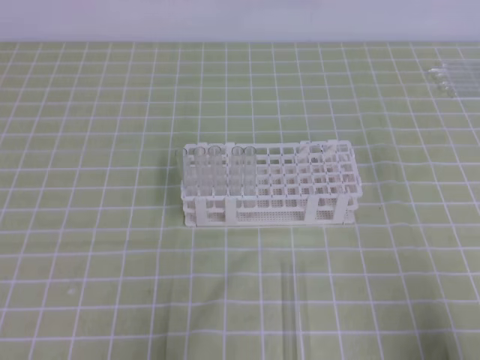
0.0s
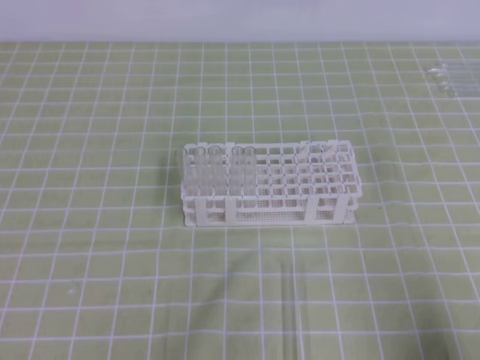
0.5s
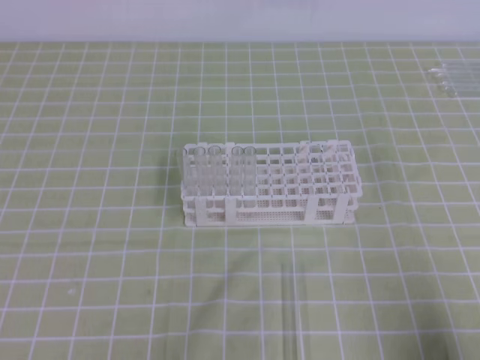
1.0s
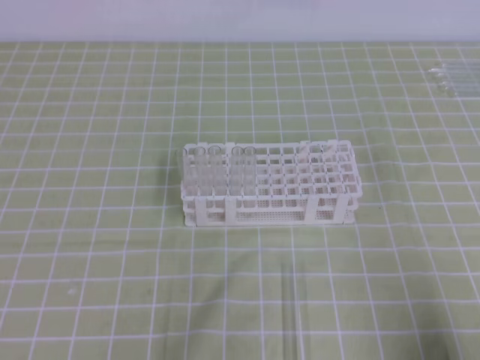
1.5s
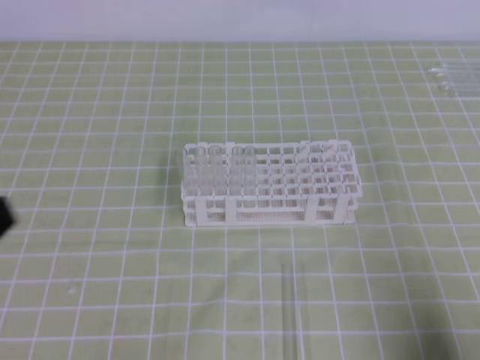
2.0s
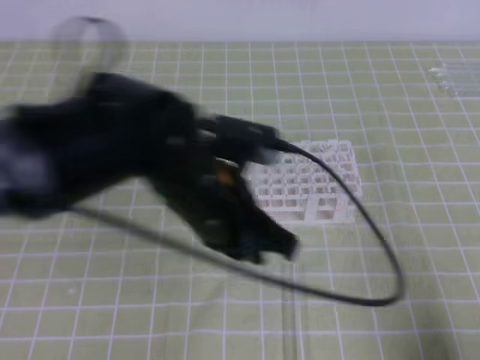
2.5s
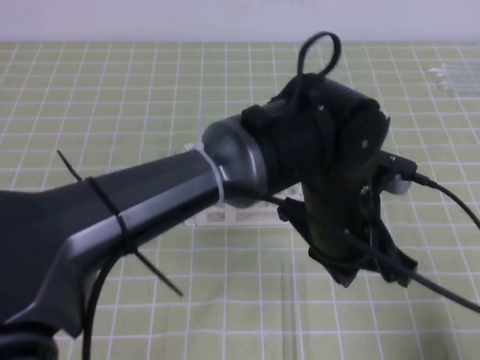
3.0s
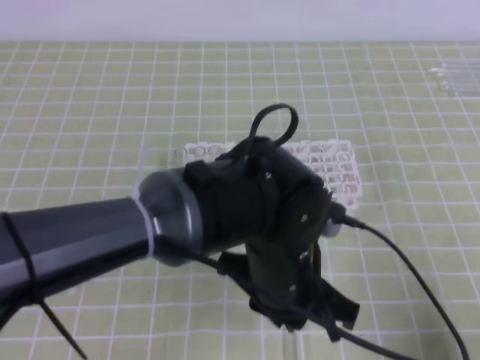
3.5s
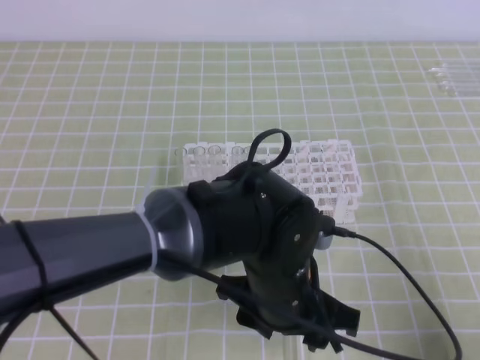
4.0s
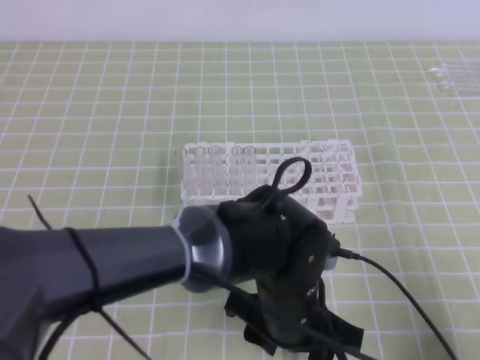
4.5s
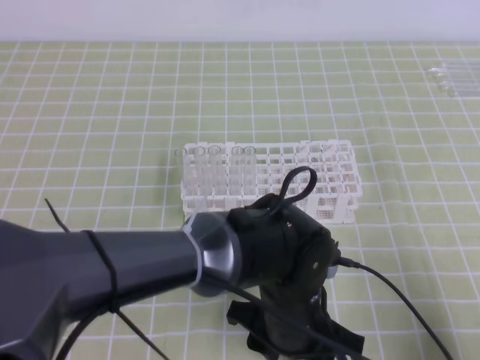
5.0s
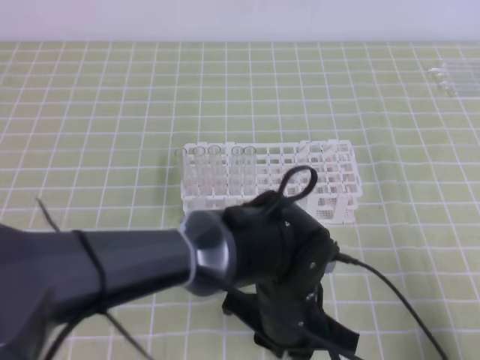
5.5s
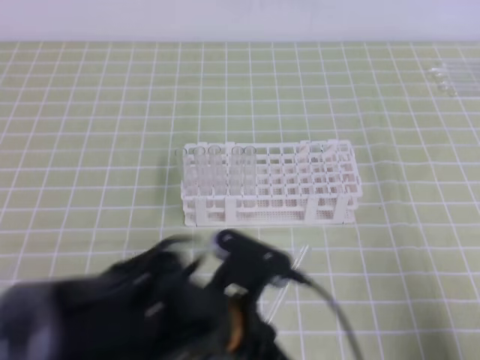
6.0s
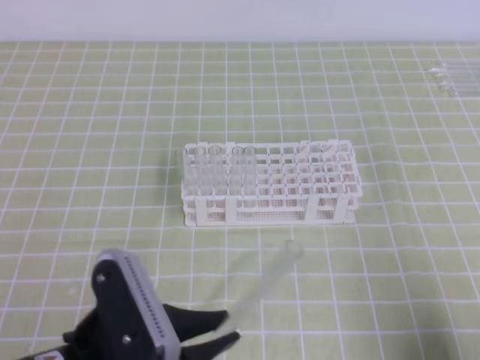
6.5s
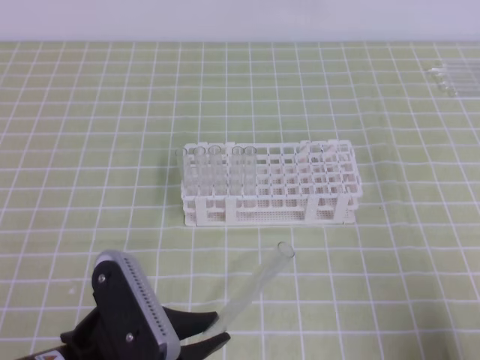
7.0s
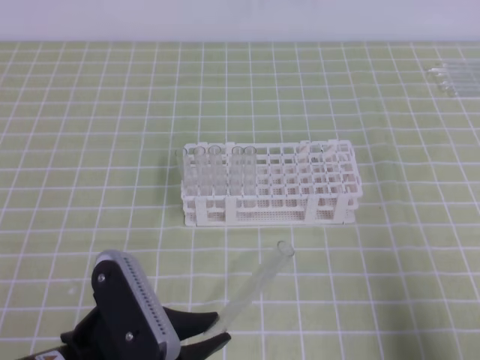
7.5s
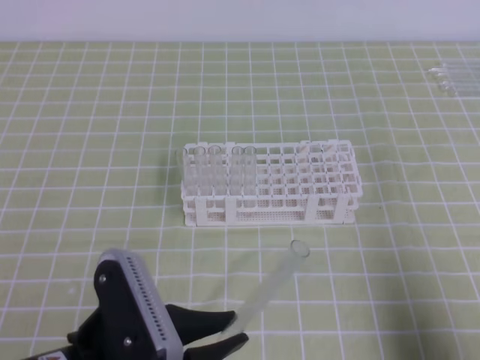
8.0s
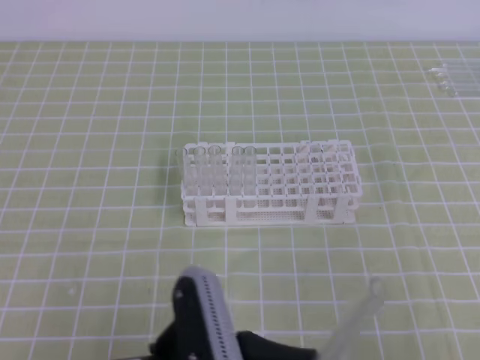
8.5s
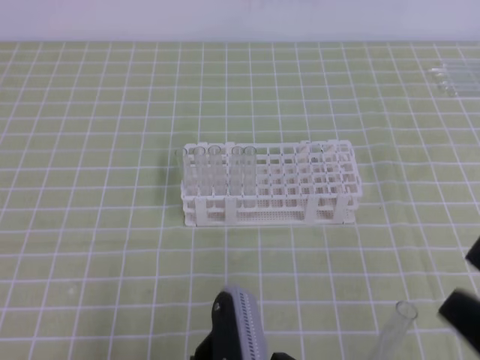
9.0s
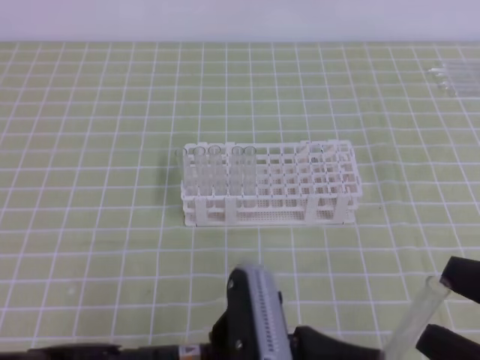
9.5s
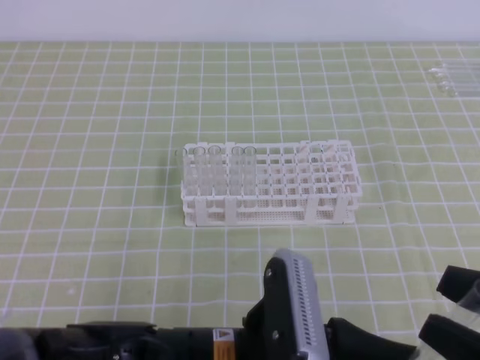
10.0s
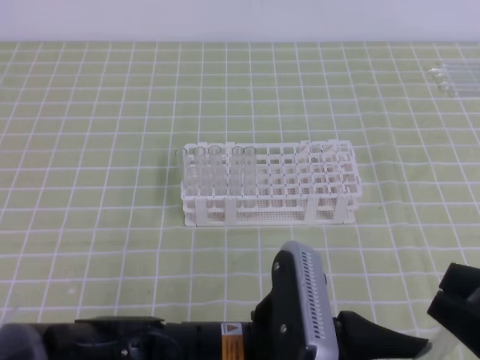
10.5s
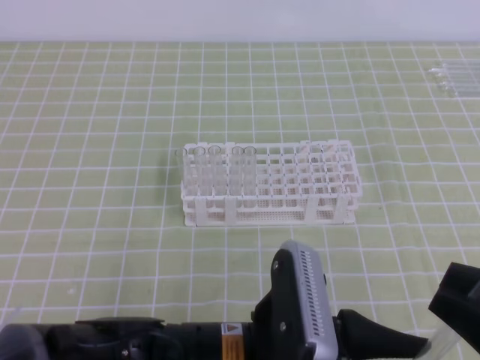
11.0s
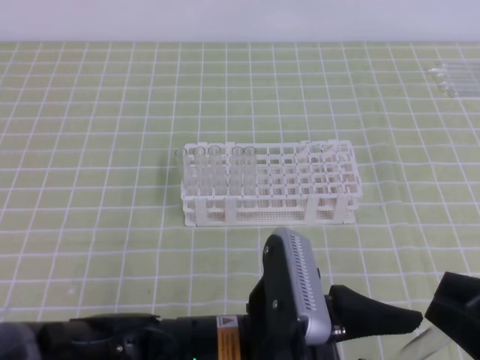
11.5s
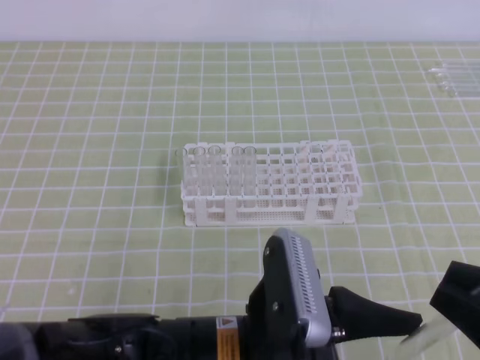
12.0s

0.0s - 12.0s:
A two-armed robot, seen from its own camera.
0.0s - 2.0s: The left gripper shifts some 15 cm upward.
2.0s - 4.0s: The left gripper shifts approximately 30 cm to the right and downward, and opens its fingers.
4.0s - 6.0s: The left gripper moves to the left, some 5 cm, and closes.
6.0s - 8.0s: The left gripper heads to the left and backward, covering about 10 cm.
8.0s - 10.0s: The left gripper heads to the right, covering approximately 10 cm; the right gripper heads upward and to the left, covering approximately 10 cm, and opens.
10.0s - 12.0s: The left gripper opens its fingers. Meanwhile the right gripper closes up.

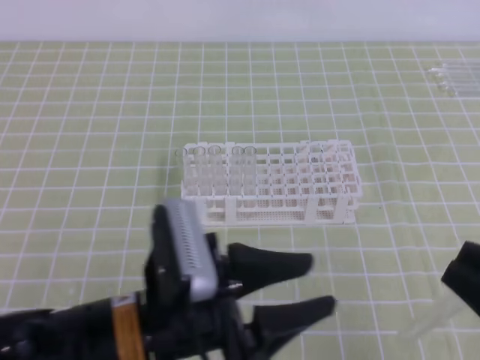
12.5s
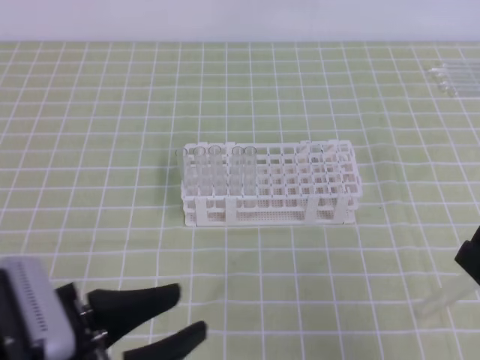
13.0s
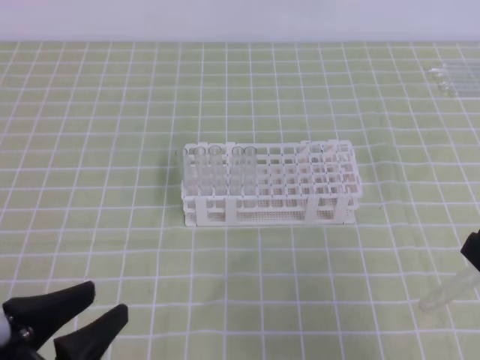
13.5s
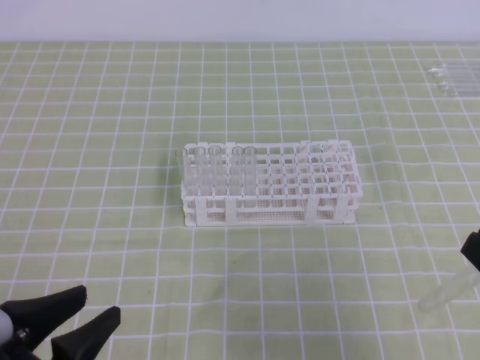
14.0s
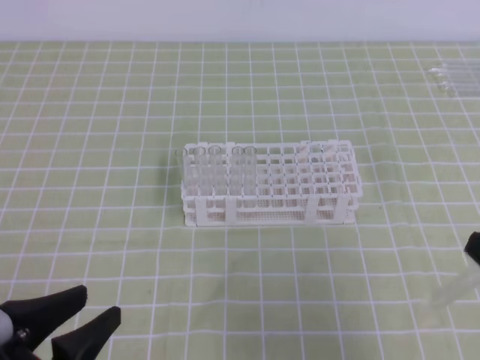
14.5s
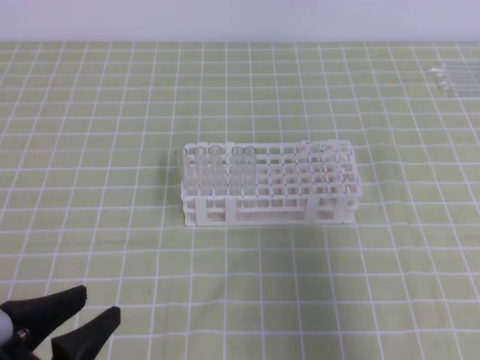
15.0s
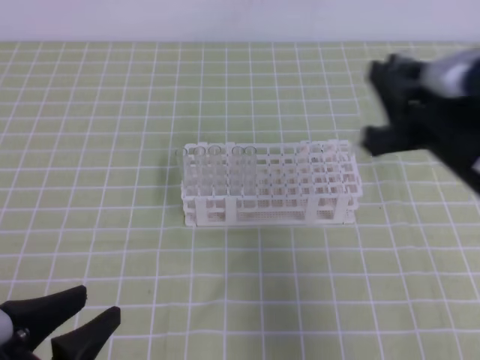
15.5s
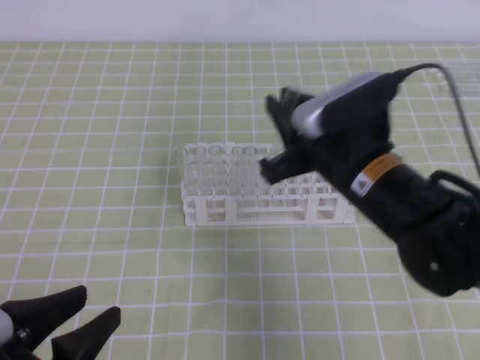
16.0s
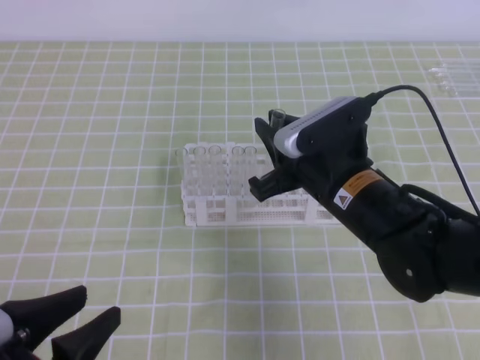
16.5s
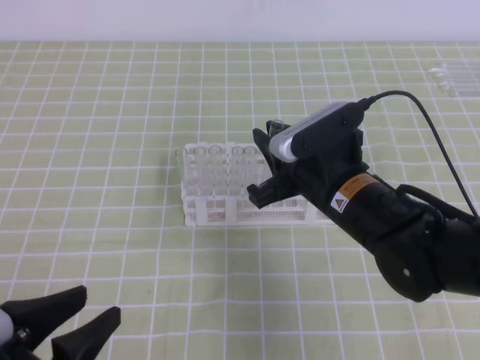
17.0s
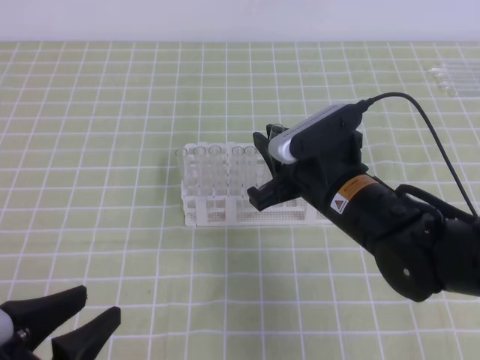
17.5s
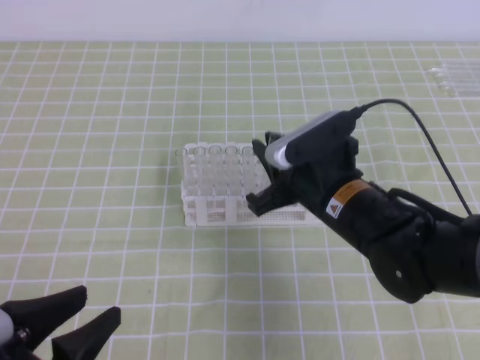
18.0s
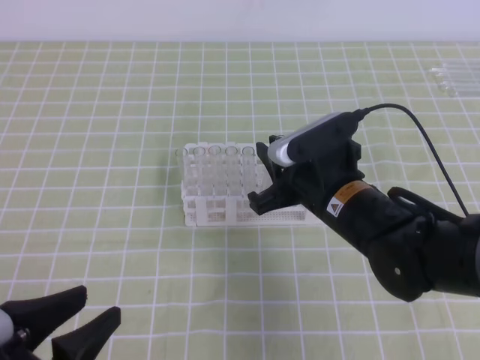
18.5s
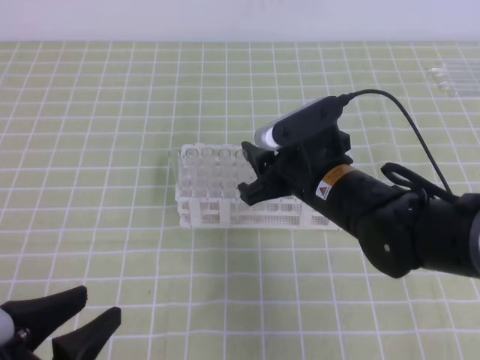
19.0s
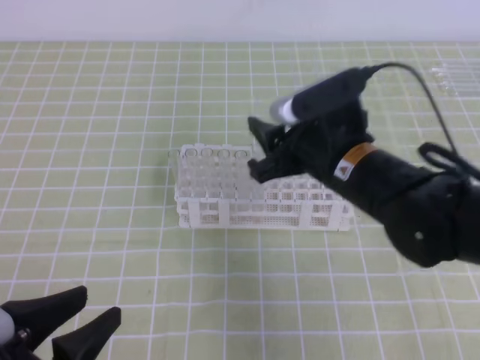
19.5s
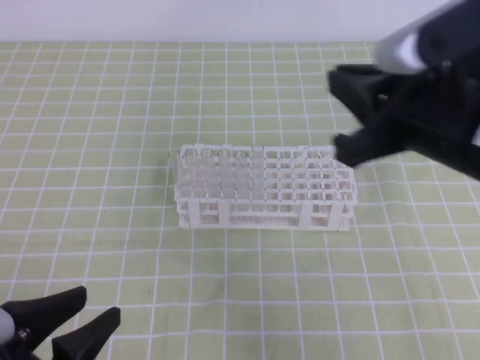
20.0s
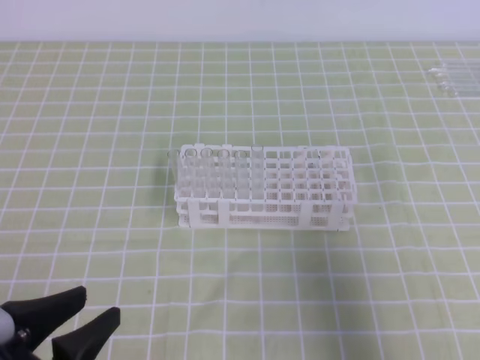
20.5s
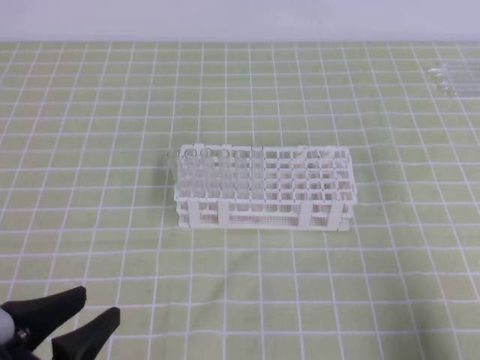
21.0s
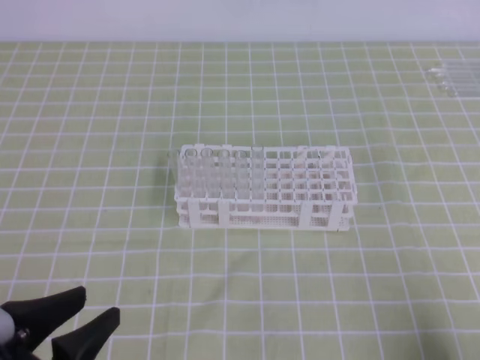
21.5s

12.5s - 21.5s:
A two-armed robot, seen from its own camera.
12.5s - 14.5s: The left gripper heads to the left, covering some 15 cm.
14.5s - 17.0s: The right gripper is displaced forward, to the left and downward by roughly 25 cm.
17.0s - 19.5s: The right gripper opens up.
19.5s - 21.5s: The right gripper shifts about 30 cm backward and to the right, and closes.

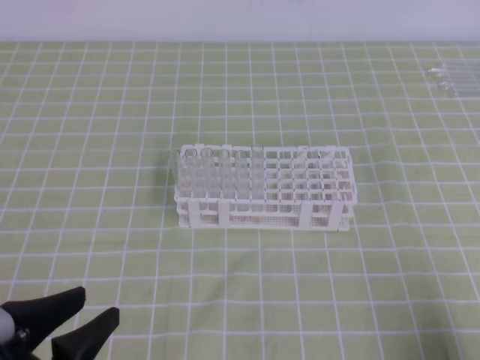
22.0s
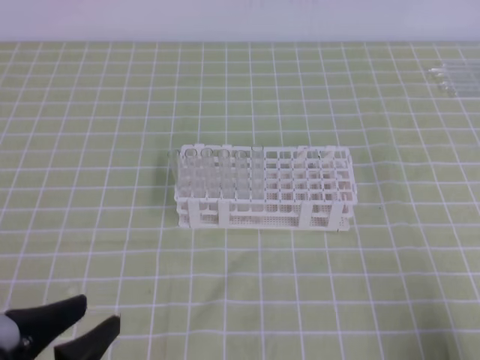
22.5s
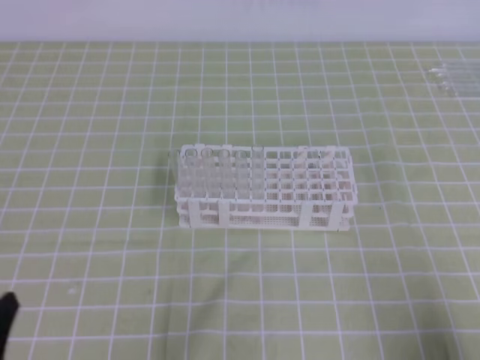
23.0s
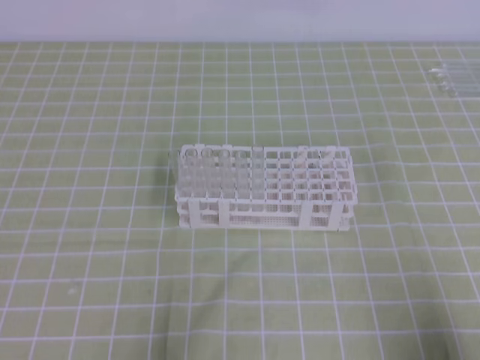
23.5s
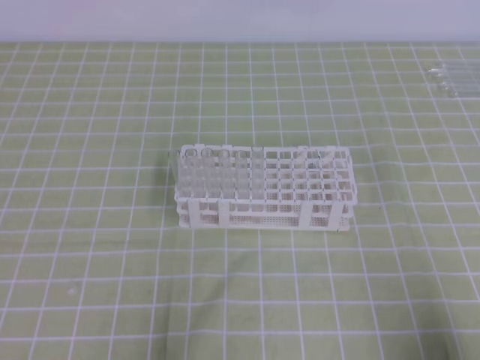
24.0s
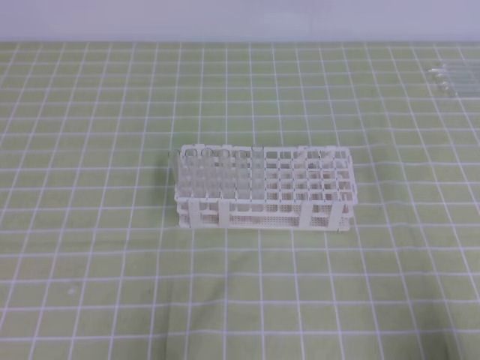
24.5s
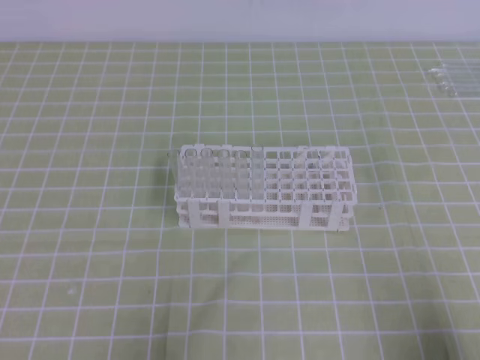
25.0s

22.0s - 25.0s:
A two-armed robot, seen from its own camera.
22.0s - 23.5s: The left gripper moves to the left, roughly 5 cm, and closes.

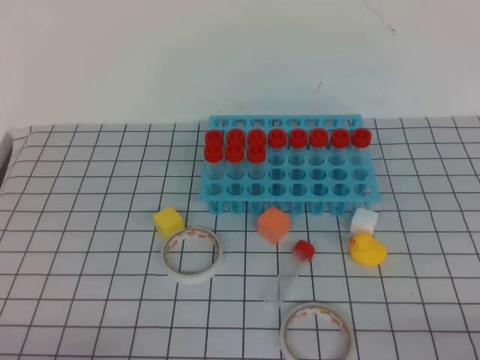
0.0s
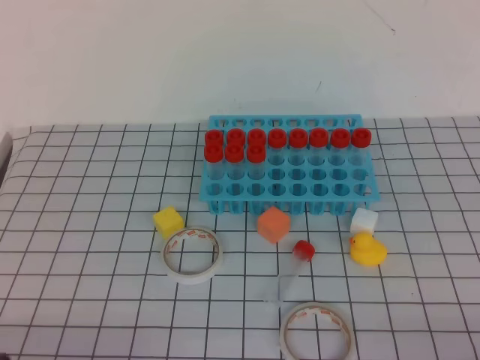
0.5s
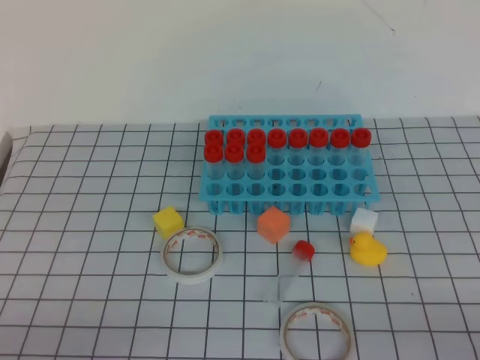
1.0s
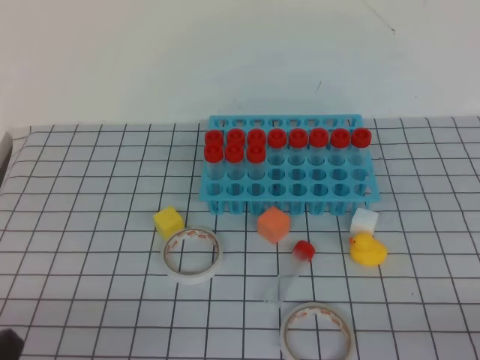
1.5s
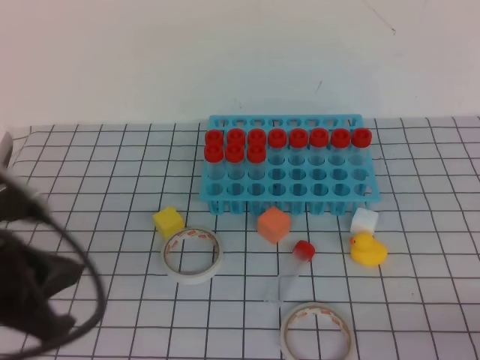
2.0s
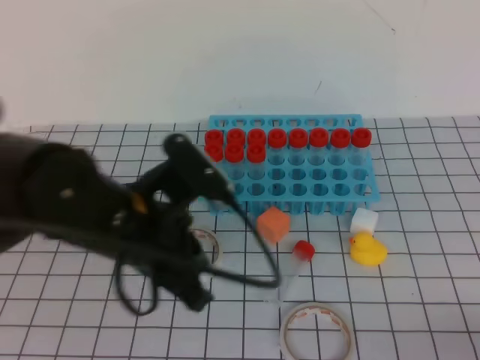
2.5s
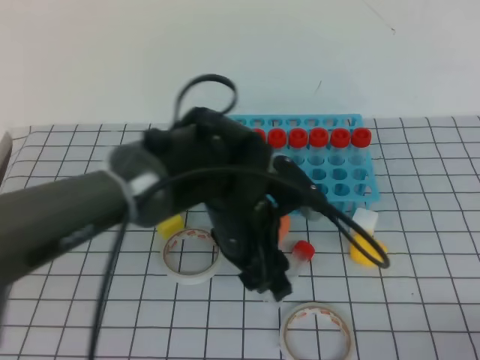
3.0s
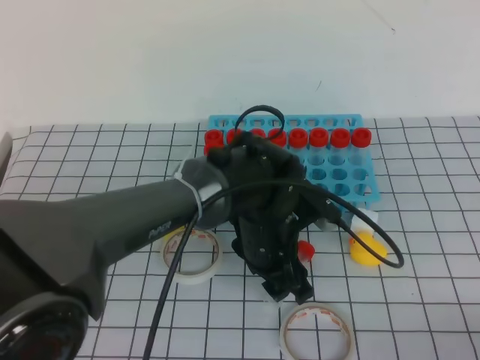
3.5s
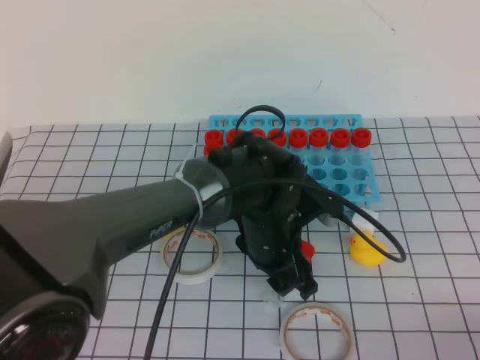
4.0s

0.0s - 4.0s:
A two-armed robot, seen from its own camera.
0.0s - 2.0s: The left gripper is displaced upward and forward by some 15 cm.
2.0s - 4.0s: The left gripper travels to the right, forward and downward by approximately 30 cm, and opens up.
